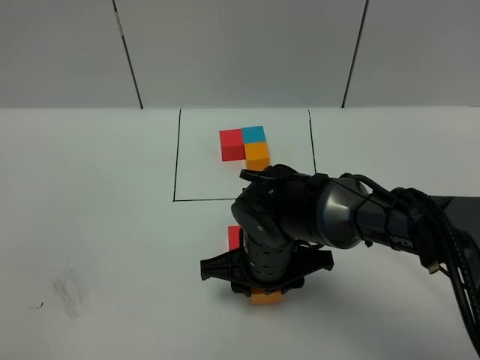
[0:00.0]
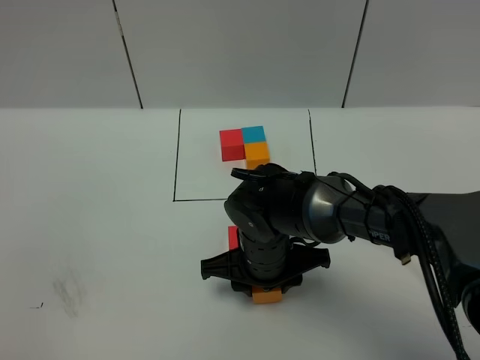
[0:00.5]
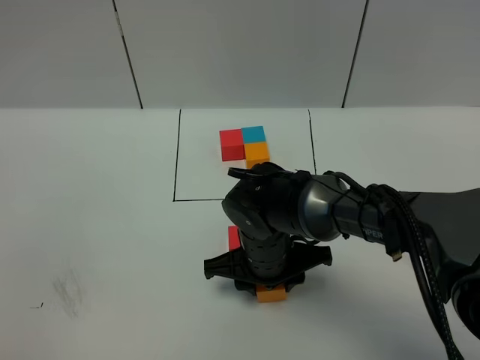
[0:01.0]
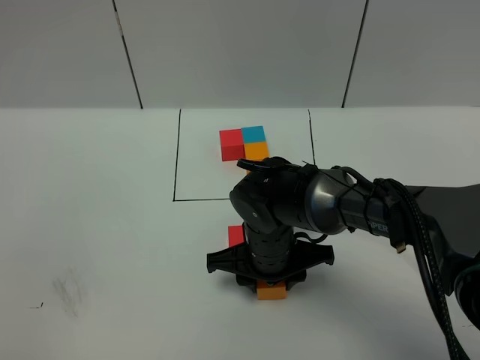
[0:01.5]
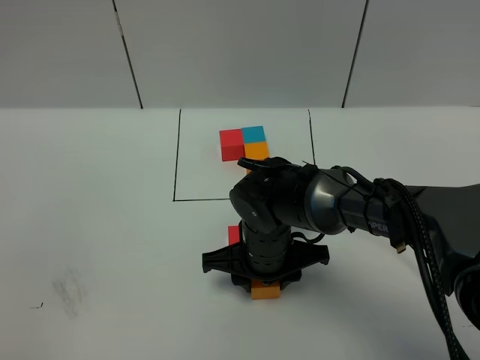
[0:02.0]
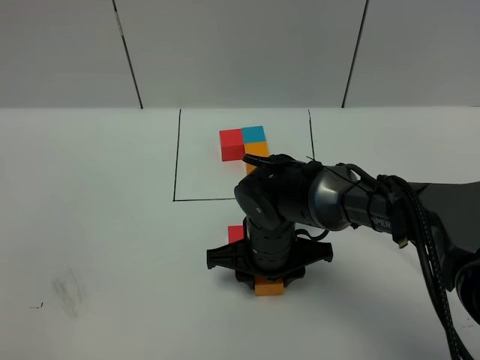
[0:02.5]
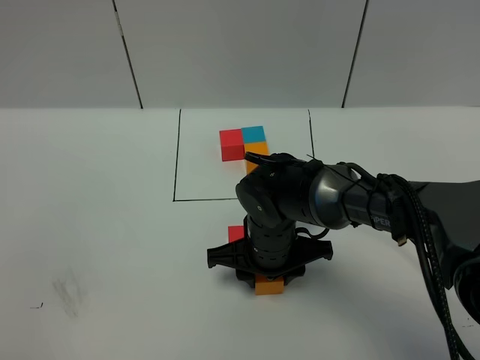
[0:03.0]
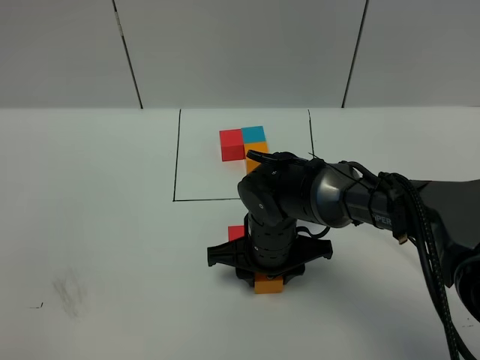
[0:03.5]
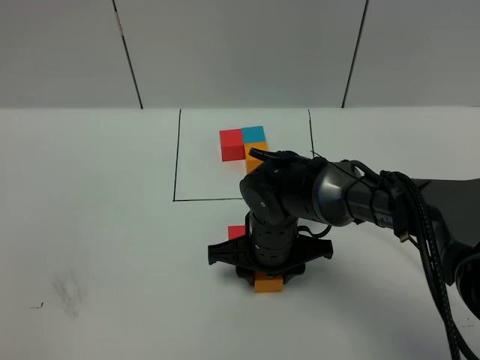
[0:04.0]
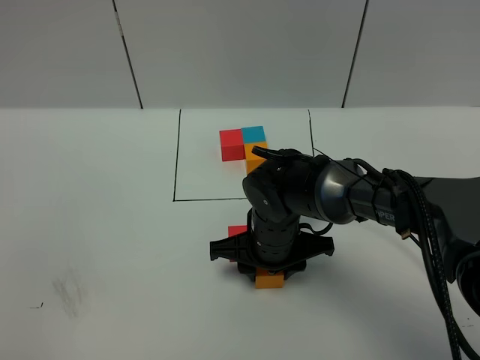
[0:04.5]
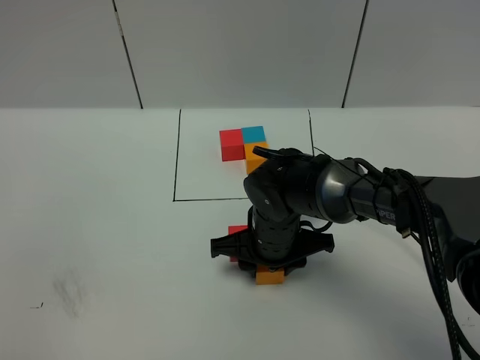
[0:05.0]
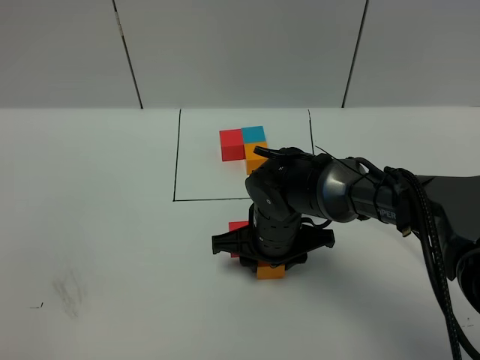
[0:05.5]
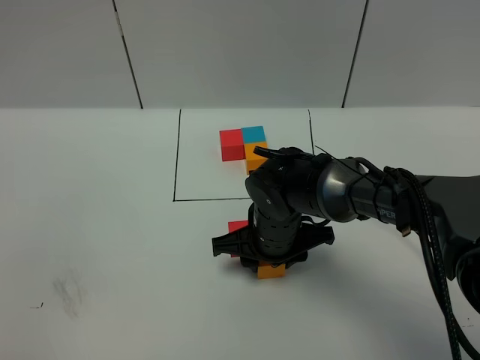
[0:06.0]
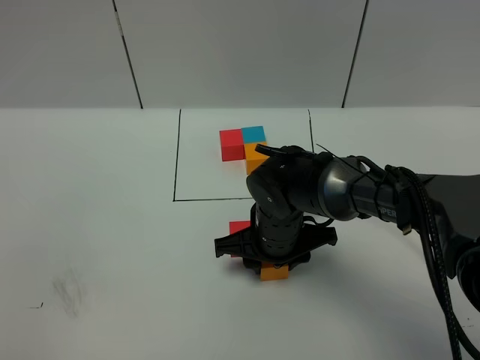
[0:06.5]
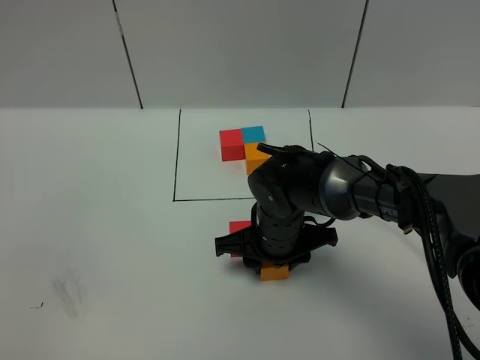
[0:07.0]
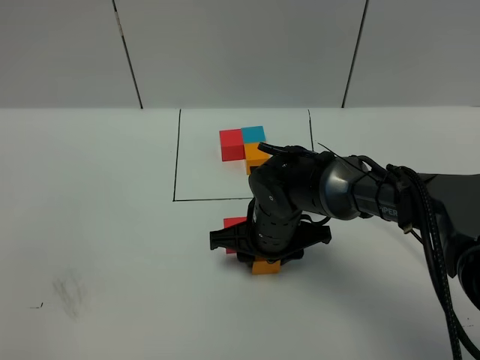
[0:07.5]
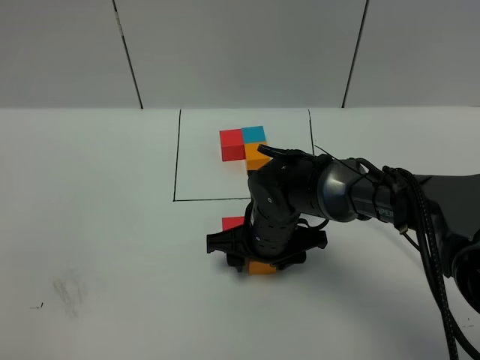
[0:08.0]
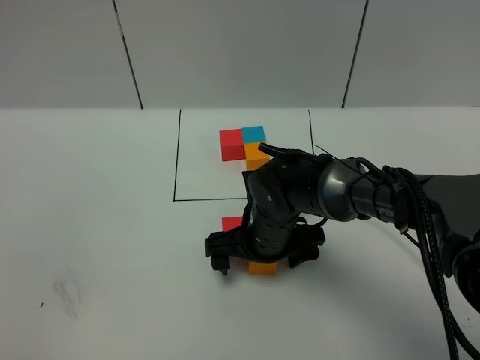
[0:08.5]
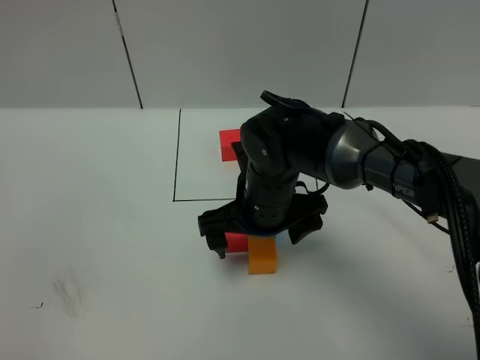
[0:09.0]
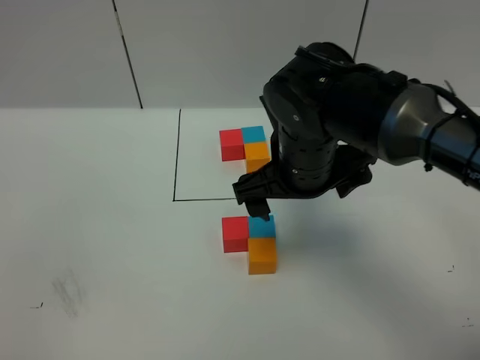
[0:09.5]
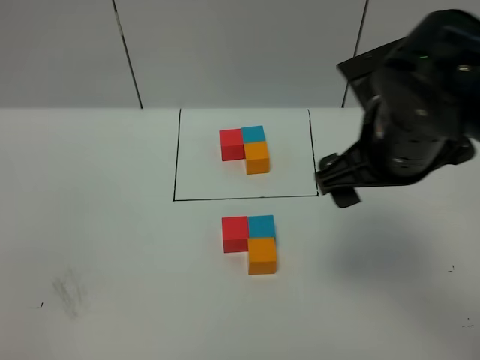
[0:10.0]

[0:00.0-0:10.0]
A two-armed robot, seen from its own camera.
Task of the whole recording: According to the building block template in front, assemble the scattered blocks together.
Step, 0:00.0 to 0:08.5: Put the orange cube in the front of the blue cube.
0:00.0 to 0:06.0: There are only small adjustments of the grippers.
0:06.0 to 0:08.0: The right gripper opens.
0:08.0 to 0:10.0: The right gripper heads upward and to the right, covering about 25 cm, and opens its fingers.
